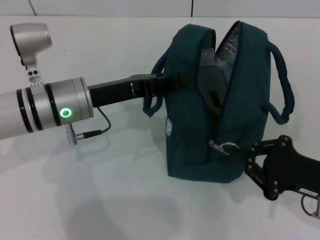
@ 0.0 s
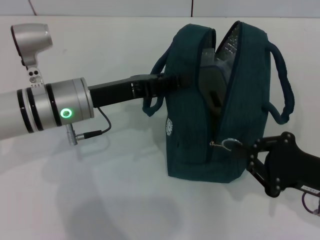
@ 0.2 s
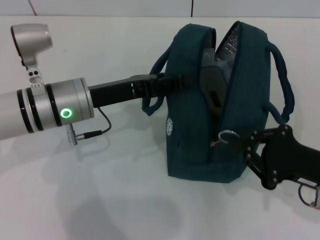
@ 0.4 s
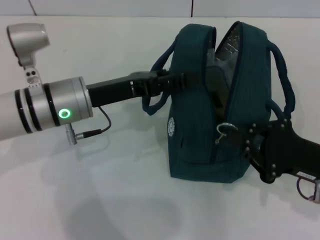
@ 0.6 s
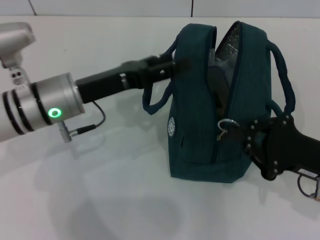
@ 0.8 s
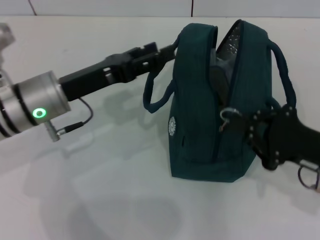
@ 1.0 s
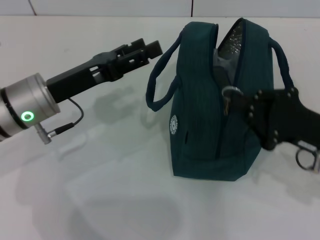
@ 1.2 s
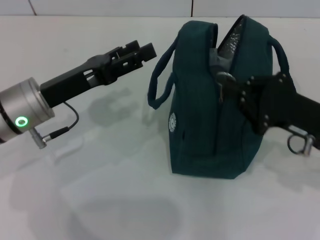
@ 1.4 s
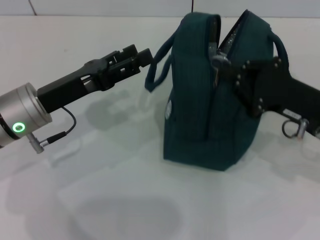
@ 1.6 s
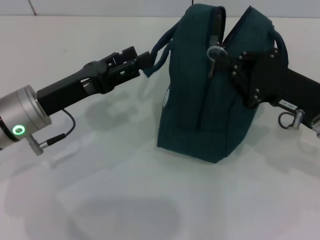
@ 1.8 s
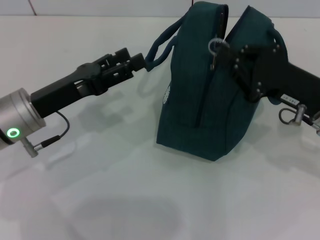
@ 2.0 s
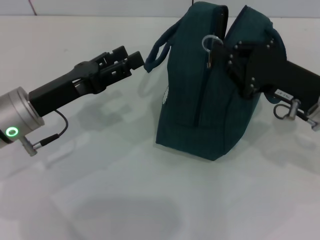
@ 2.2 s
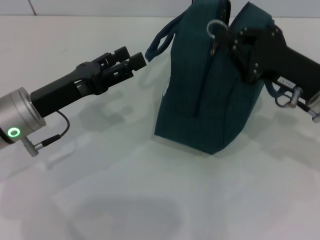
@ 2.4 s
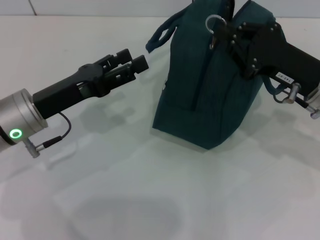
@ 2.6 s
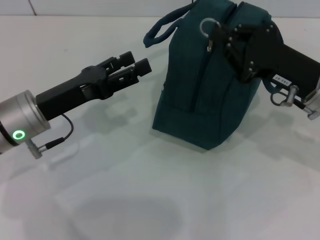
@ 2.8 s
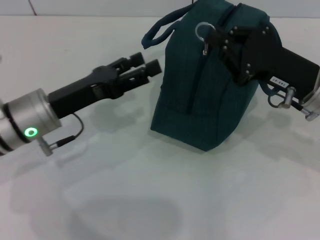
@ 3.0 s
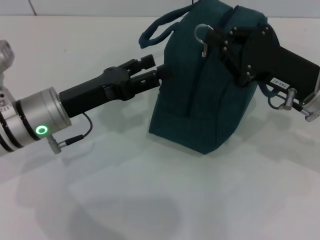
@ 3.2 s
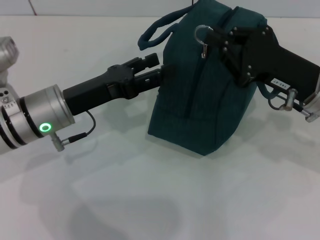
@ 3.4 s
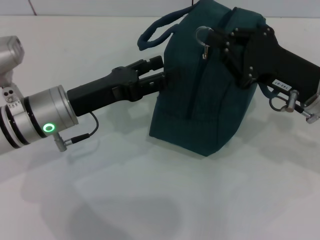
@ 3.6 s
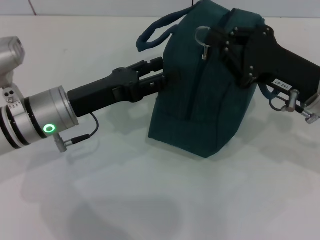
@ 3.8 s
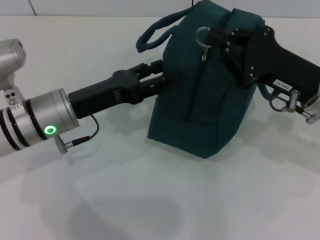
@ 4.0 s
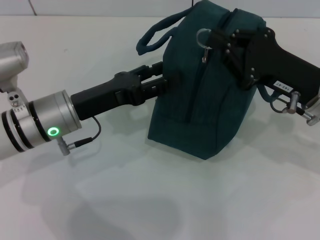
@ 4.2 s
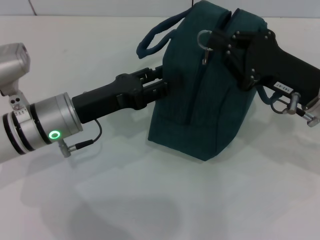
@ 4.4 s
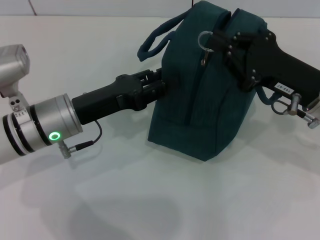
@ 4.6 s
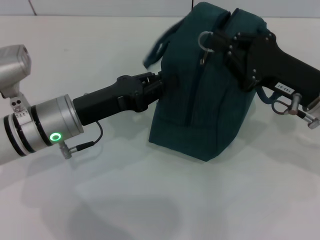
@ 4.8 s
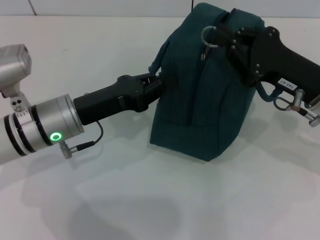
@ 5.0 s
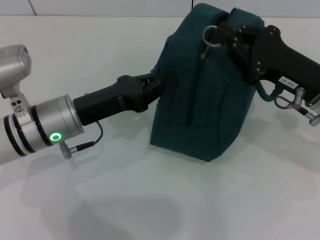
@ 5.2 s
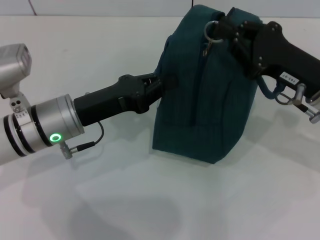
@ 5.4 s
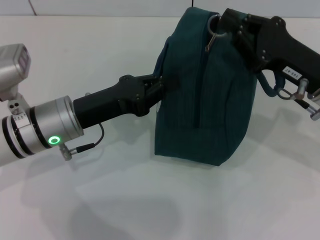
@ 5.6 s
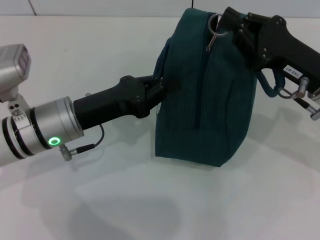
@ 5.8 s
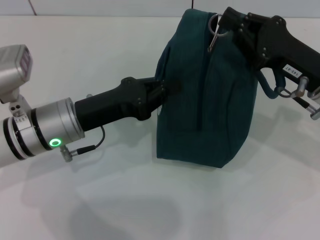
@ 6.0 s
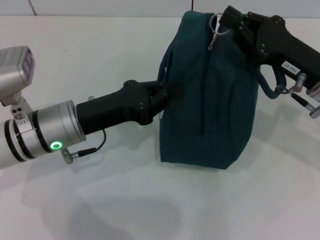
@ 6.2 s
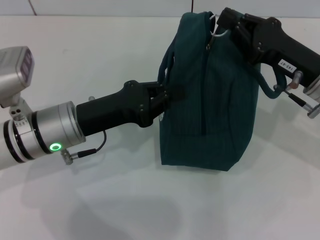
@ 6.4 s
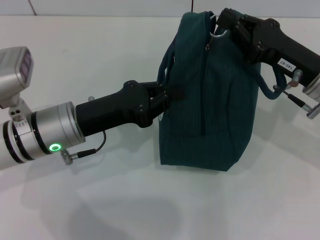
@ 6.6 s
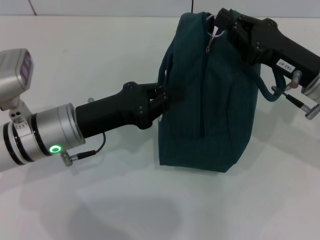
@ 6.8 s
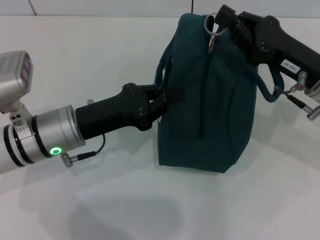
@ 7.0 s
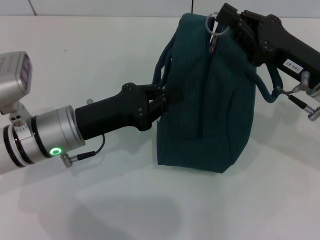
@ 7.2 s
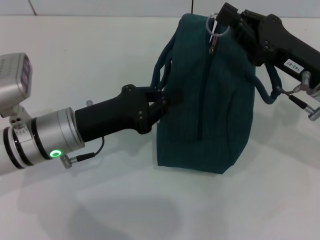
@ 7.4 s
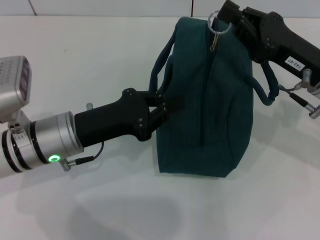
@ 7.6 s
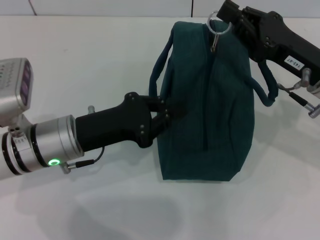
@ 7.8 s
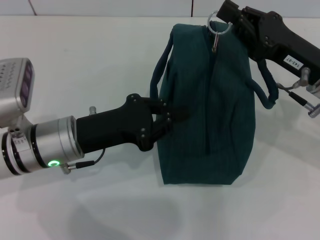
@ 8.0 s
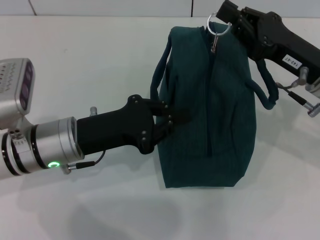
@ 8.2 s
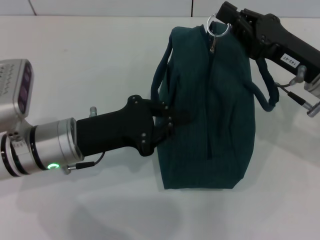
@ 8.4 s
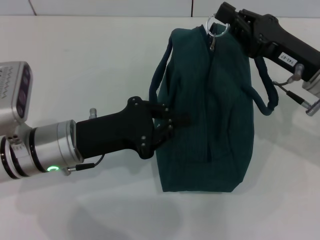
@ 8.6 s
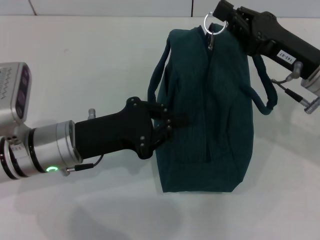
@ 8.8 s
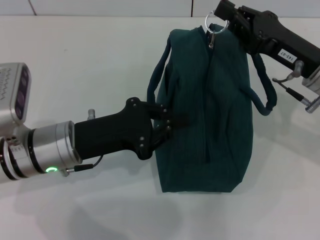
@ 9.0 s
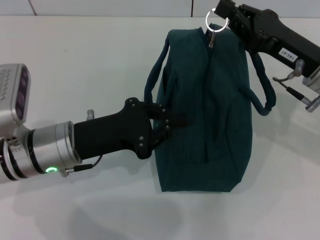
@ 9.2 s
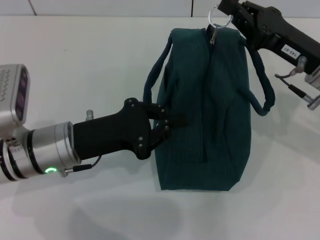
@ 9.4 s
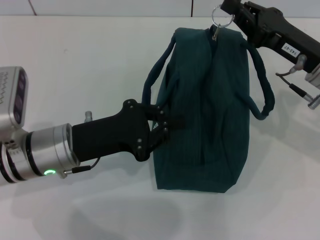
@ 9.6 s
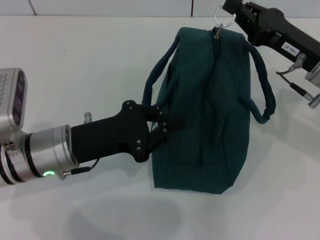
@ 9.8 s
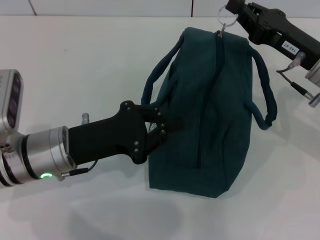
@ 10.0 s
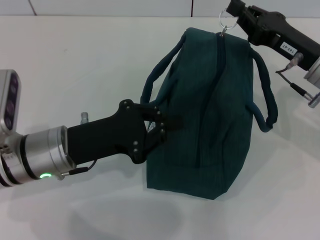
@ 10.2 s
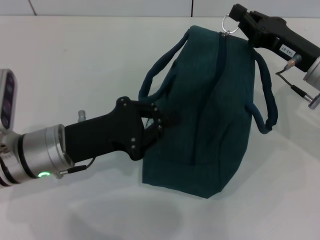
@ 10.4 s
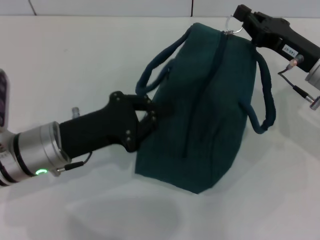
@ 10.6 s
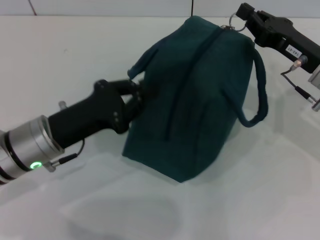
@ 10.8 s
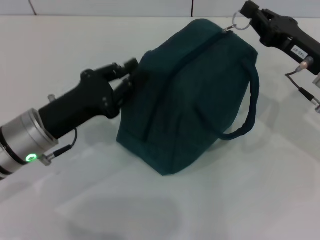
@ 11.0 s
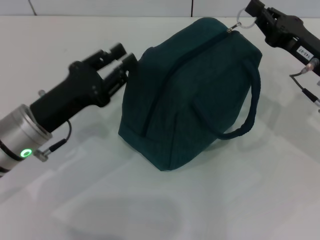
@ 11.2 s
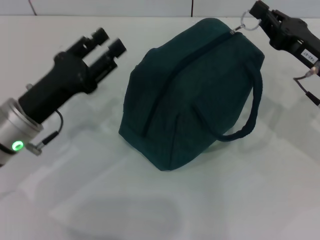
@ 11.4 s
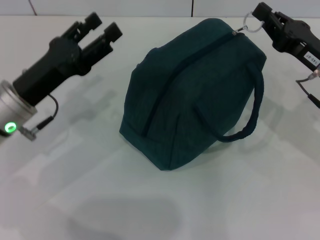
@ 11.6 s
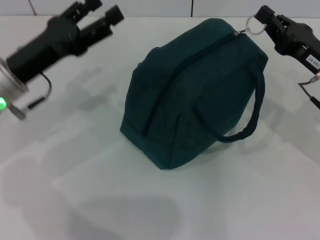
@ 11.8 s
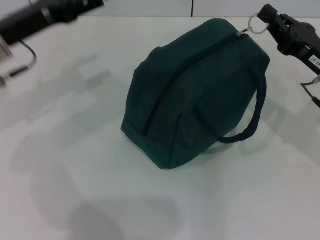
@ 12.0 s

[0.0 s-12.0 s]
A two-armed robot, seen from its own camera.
0.0 to 1.6 s: The left gripper shifts by approximately 5 cm, and opens up. The right gripper moves forward, roughly 5 cm.
3.0 to 4.4 s: The grippers move only a little.
4.4 to 6.0 s: The left gripper closes up.
6.0 to 9.0 s: The grippers stay close to where they were, moving slightly.
9.0 to 10.4 s: The grippers stay close to where they were, moving slightly.
10.4 to 12.0 s: The left gripper travels forward, upward and to the left by about 15 cm, and opens up.

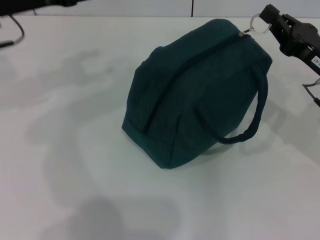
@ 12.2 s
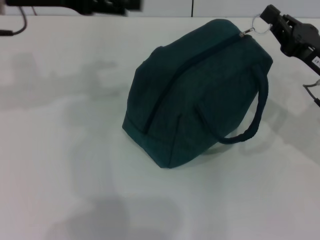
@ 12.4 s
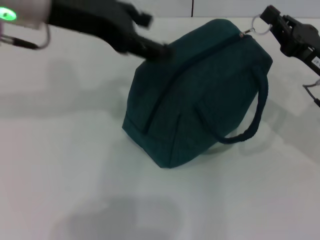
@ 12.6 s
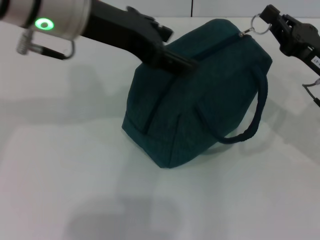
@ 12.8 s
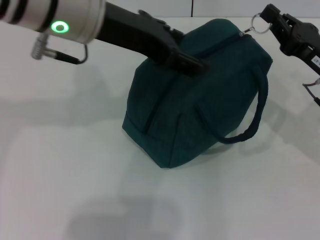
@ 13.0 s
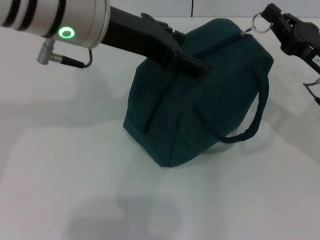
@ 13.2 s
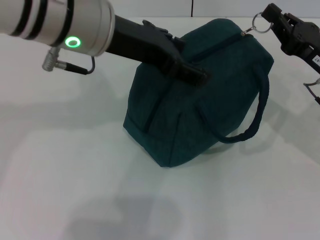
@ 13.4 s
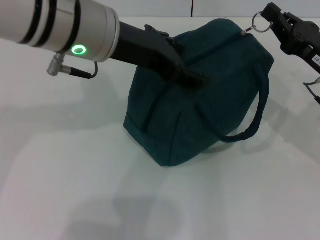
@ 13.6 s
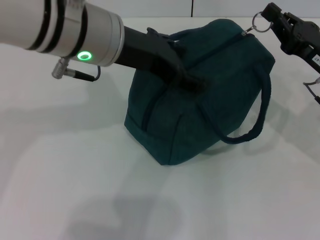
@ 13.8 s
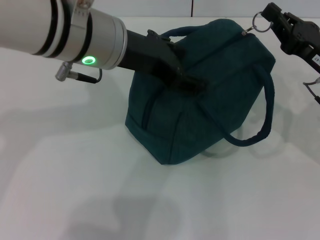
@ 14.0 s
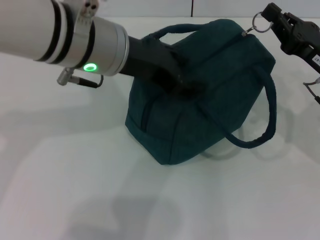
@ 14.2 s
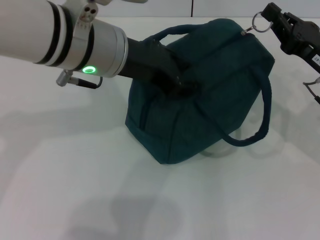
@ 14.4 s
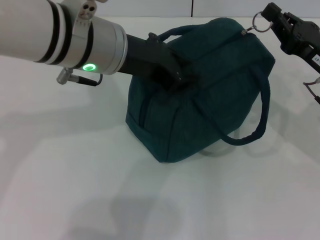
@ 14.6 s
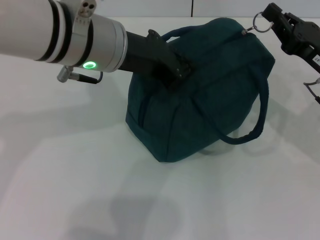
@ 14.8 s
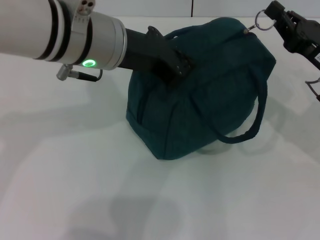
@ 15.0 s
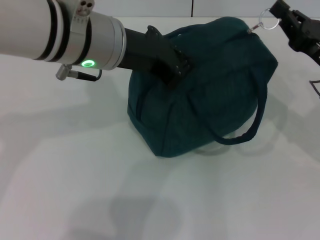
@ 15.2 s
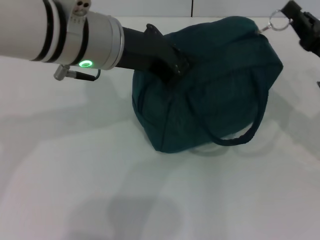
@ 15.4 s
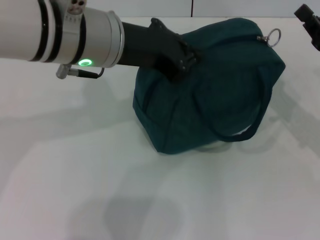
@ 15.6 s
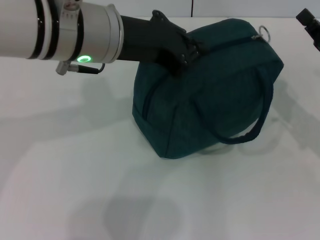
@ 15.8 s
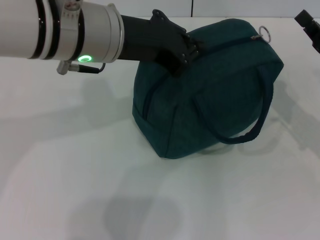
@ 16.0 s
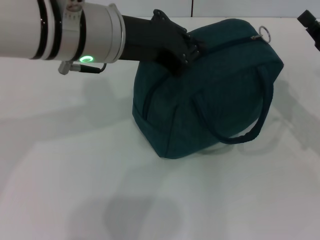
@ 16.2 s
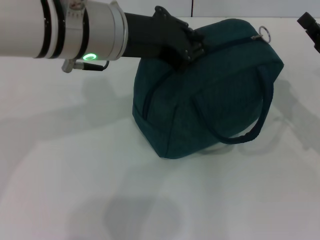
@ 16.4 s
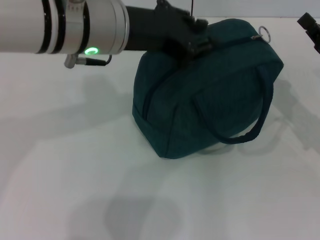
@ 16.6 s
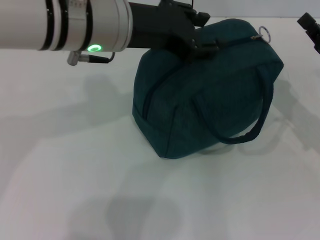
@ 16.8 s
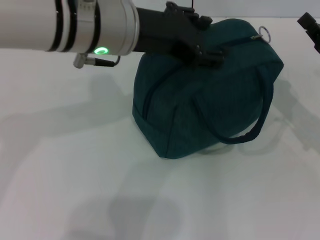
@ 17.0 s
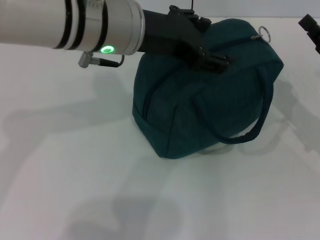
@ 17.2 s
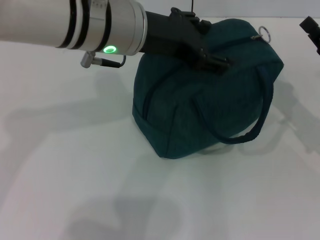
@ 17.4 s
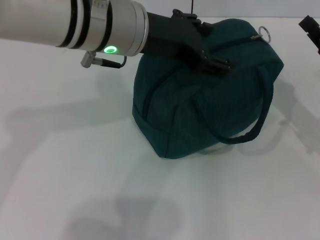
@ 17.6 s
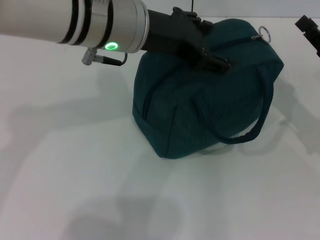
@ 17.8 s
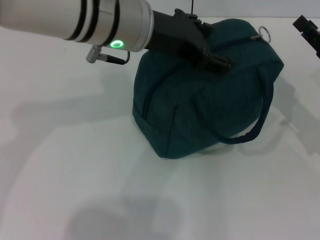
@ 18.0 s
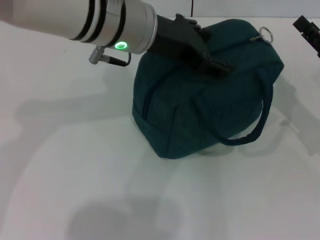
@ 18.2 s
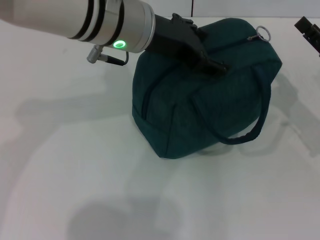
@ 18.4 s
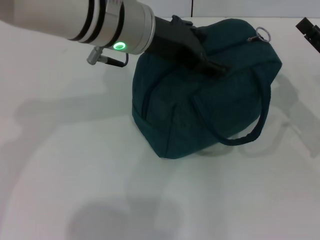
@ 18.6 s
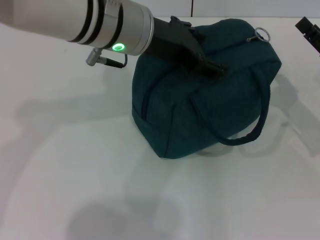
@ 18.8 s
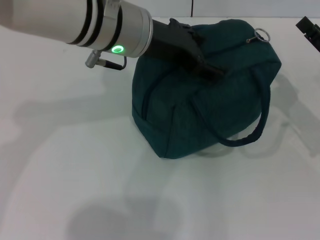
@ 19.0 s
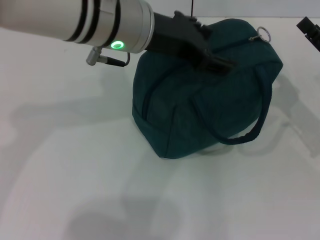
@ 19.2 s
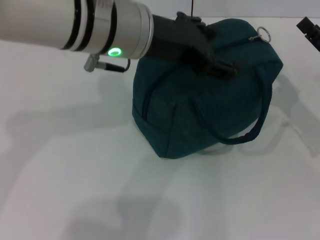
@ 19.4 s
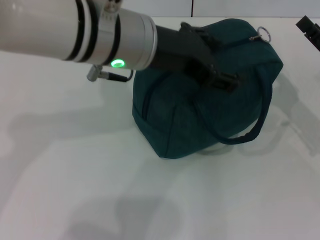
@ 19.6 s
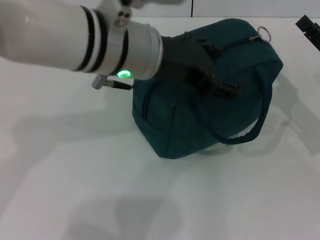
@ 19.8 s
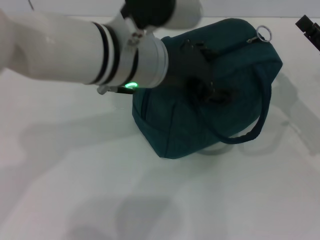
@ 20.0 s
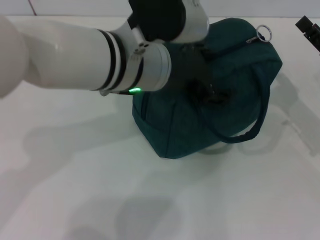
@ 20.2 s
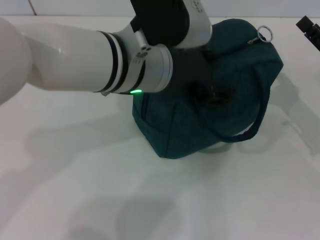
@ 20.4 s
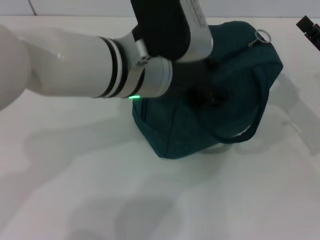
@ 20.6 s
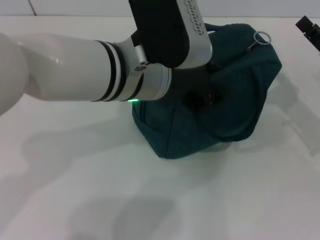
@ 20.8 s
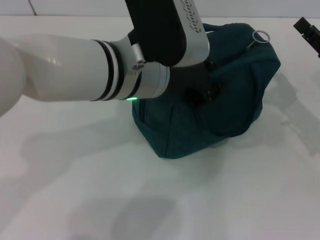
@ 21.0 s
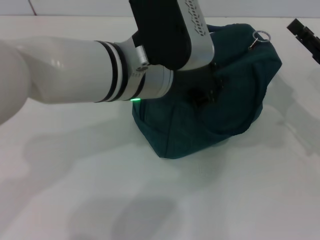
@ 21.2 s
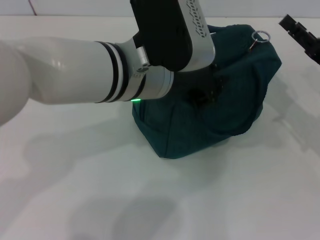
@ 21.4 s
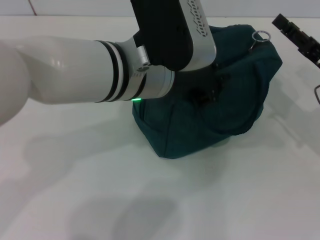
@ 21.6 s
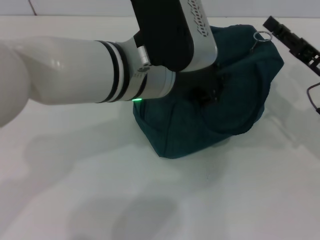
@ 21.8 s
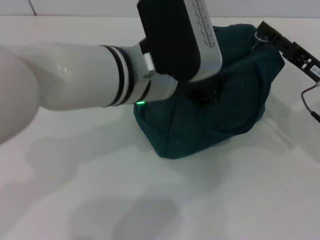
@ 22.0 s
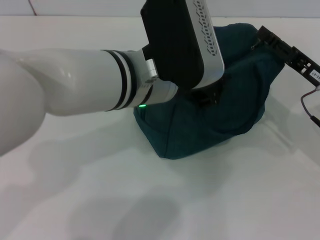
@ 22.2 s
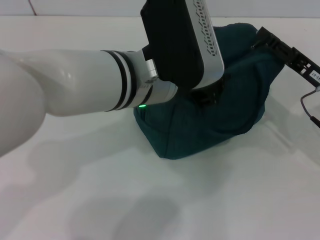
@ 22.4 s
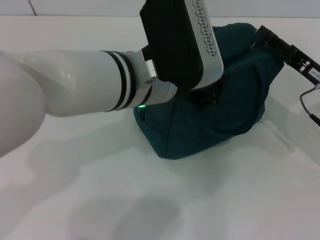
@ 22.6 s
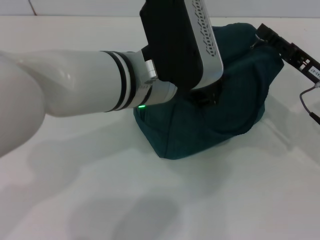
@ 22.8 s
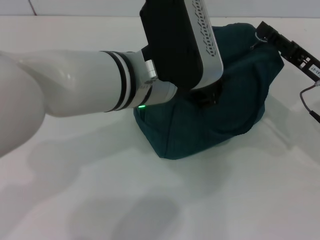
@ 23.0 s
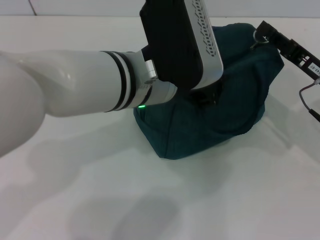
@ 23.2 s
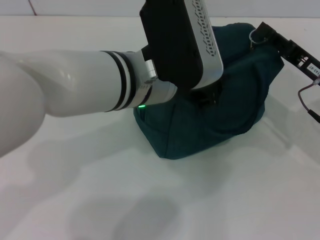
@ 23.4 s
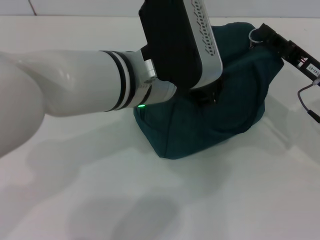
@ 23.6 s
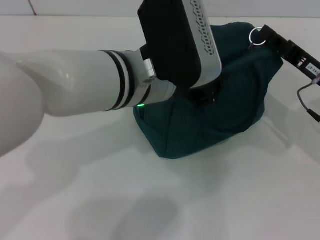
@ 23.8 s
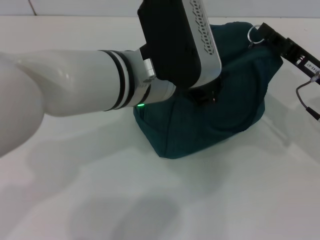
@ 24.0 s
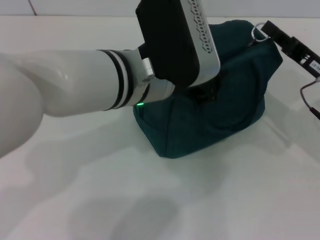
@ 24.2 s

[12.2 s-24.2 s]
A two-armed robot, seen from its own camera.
12.2 to 13.8 s: The left gripper moves to the right, some 15 cm.
13.8 to 15.2 s: The left gripper closes up.
15.2 to 16.6 s: The grippers move only a little.
16.6 to 18.2 s: The left gripper opens its fingers. The right gripper opens up.
18.2 to 19.8 s: The grippers stay close to where they were, moving slightly.
19.8 to 21.2 s: The left gripper closes up.
21.2 to 22.6 s: The grippers make only small movements.
22.6 to 24.2 s: The right gripper closes its fingers.
